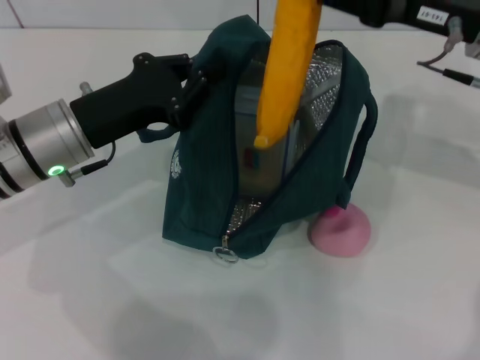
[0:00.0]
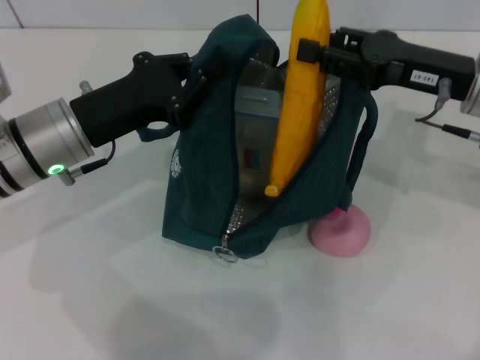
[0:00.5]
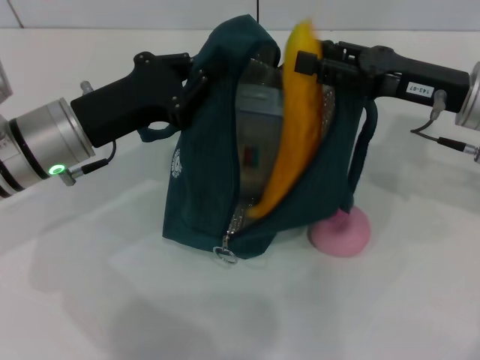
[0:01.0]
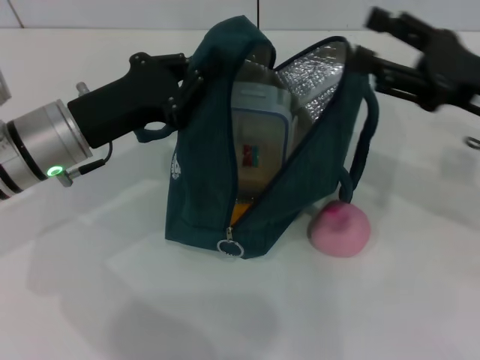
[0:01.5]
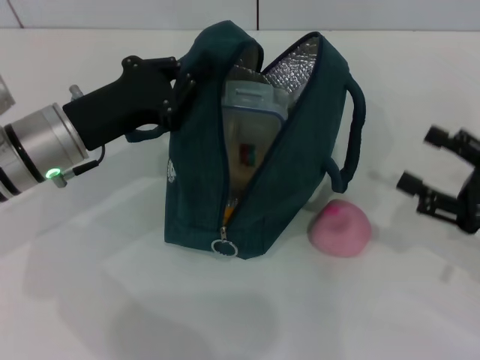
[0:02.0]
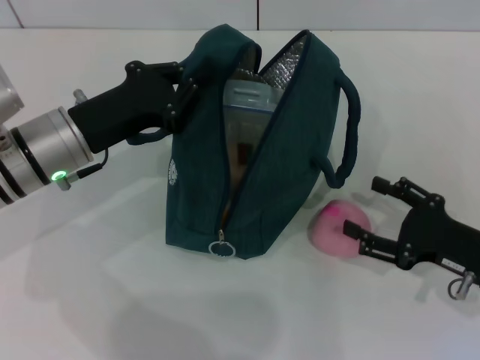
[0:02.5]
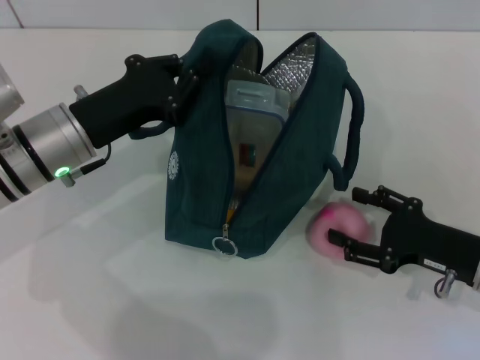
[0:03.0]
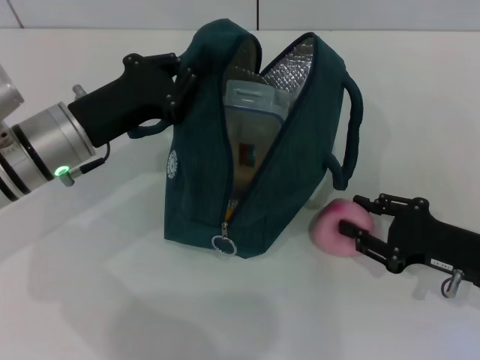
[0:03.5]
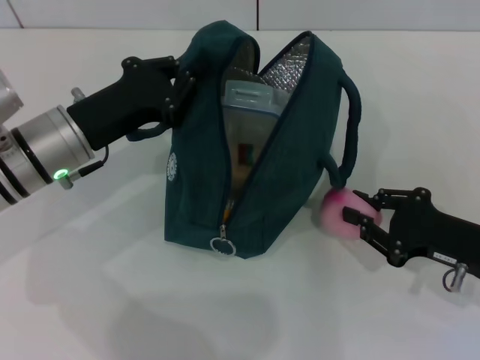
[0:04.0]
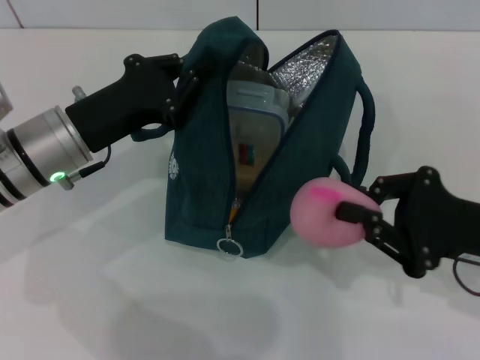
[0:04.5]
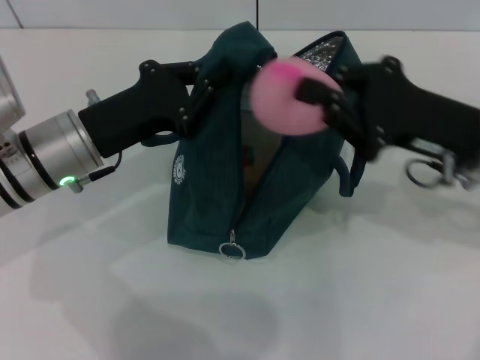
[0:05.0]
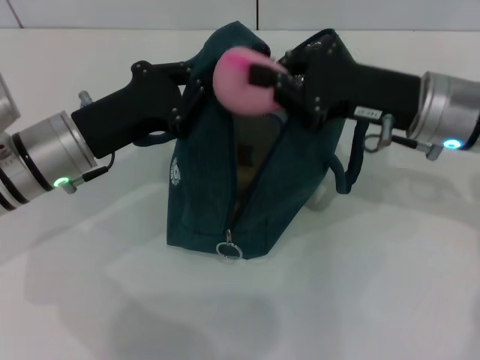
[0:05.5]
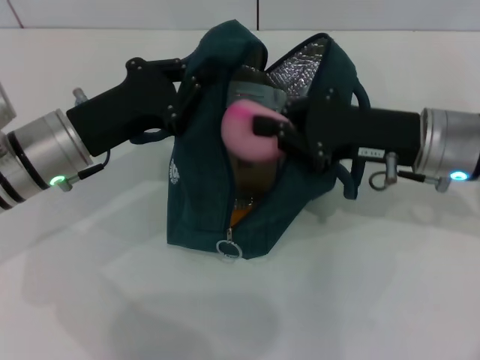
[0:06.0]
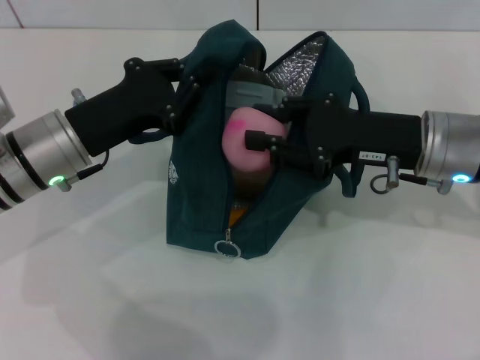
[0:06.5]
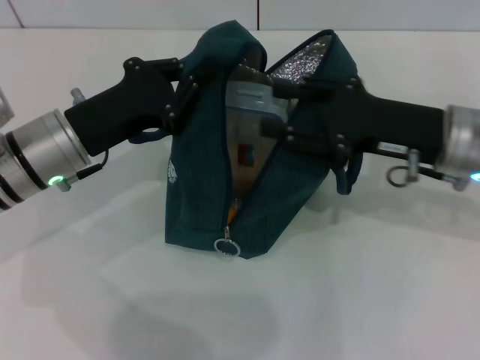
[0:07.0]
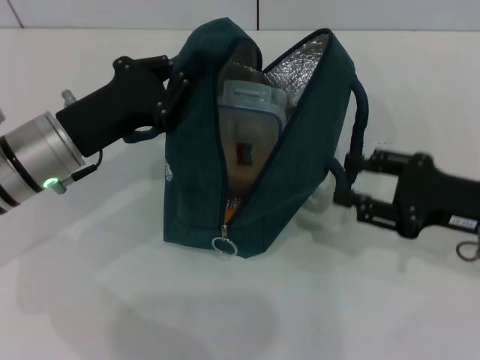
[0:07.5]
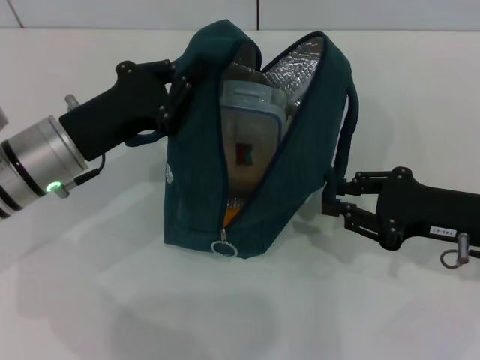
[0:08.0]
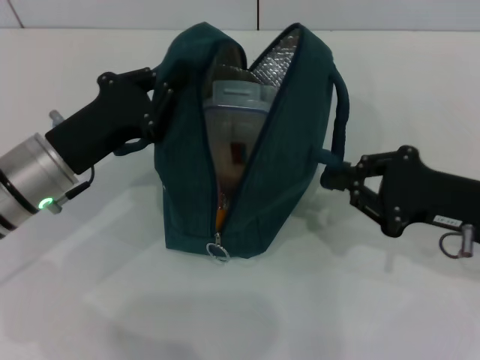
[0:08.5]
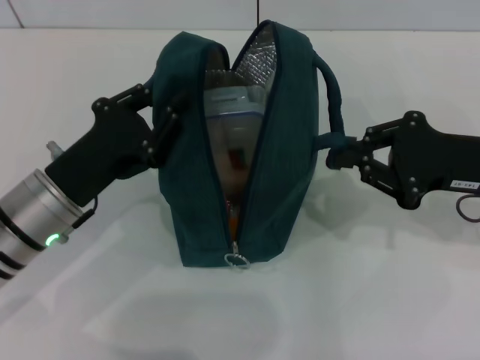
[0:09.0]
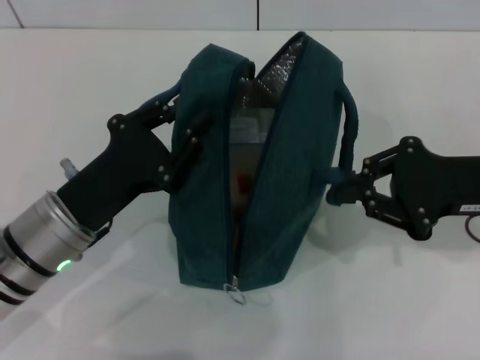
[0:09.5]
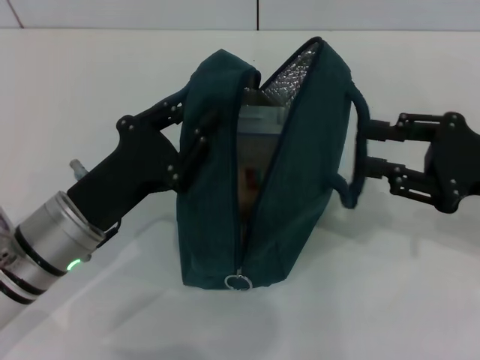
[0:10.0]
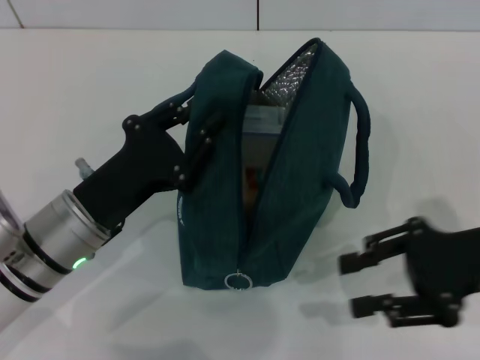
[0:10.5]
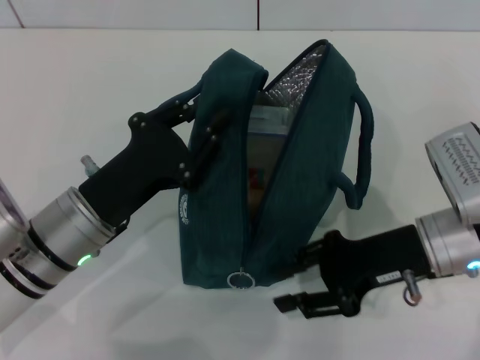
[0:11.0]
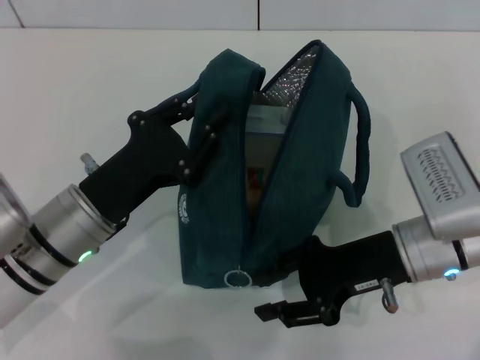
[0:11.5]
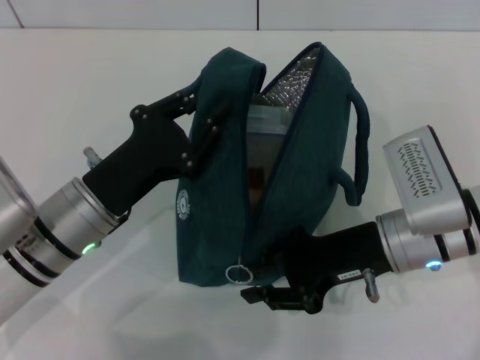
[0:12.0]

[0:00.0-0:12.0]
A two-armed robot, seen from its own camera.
Step, 0:01.5 to 0:03.5: Grab the peach with your right hand.
Step, 0:07.0 to 0:10.0: Hold the lunch bag with your right hand.
0:00.0 to 0:02.0: The right gripper shifts approximately 20 cm backward, downward and to the right, and opens its fingers.
0:02.0 to 0:04.0: The right gripper moves about 5 cm, and closes.
0:04.0 to 0:06.0: The right gripper moves upward, to the left and forward, some 15 cm.
0:06.0 to 0:08.0: The right gripper moves to the right and backward, some 10 cm.
0:08.0 to 0:10.0: The left gripper travels backward by about 5 cm. The right gripper ends up some 5 cm from where it was.
0:10.0 to 0:12.0: The right gripper is displaced to the left and downward by roughly 15 cm.

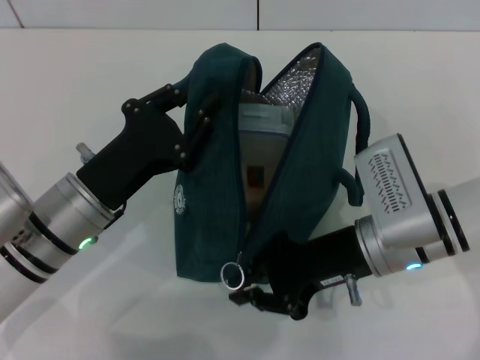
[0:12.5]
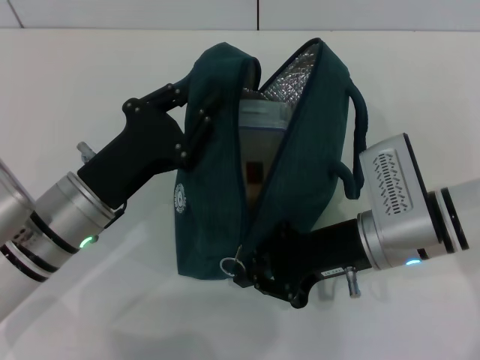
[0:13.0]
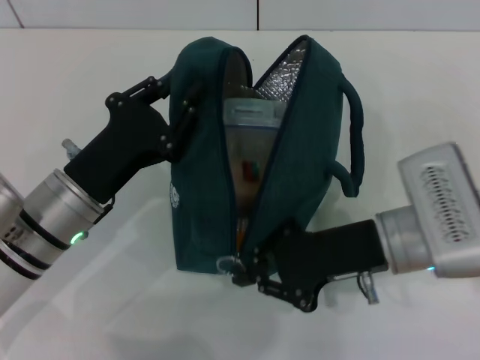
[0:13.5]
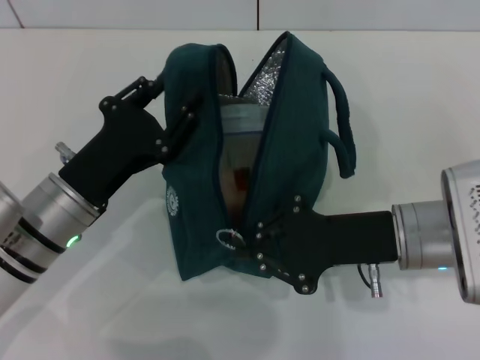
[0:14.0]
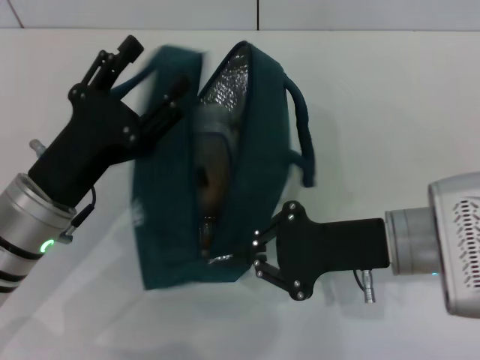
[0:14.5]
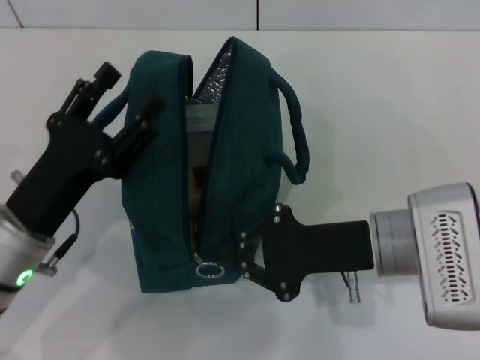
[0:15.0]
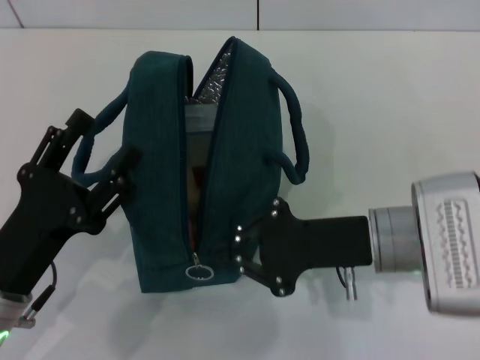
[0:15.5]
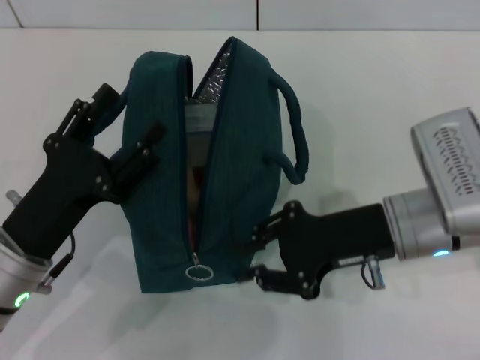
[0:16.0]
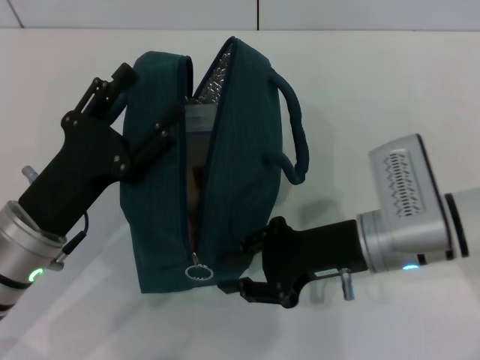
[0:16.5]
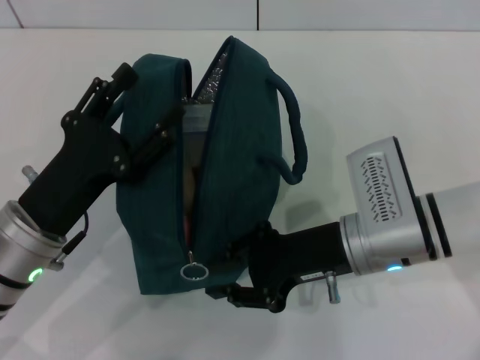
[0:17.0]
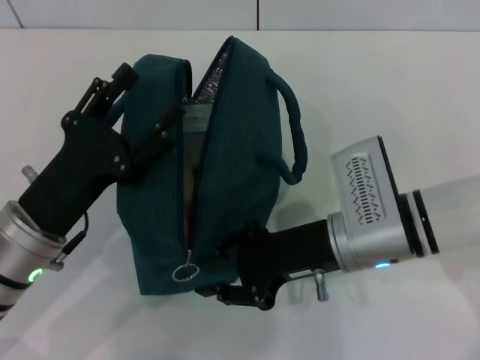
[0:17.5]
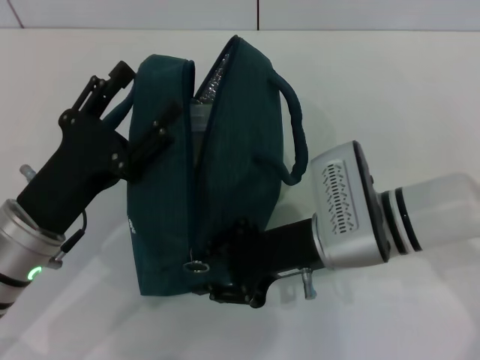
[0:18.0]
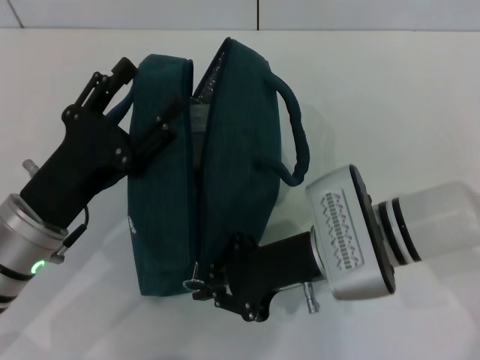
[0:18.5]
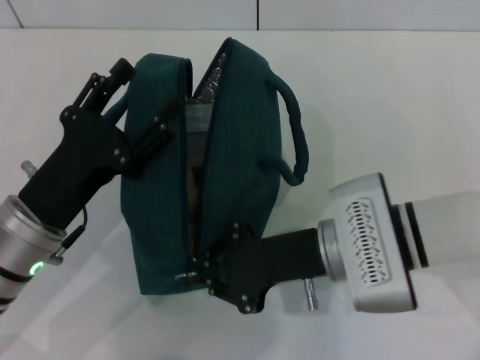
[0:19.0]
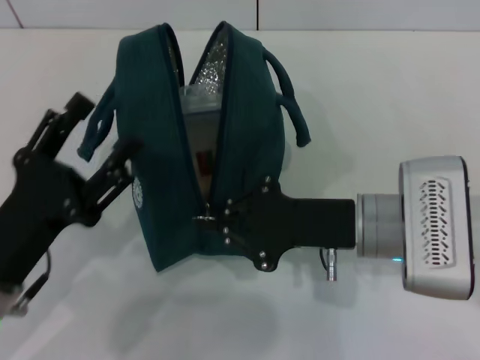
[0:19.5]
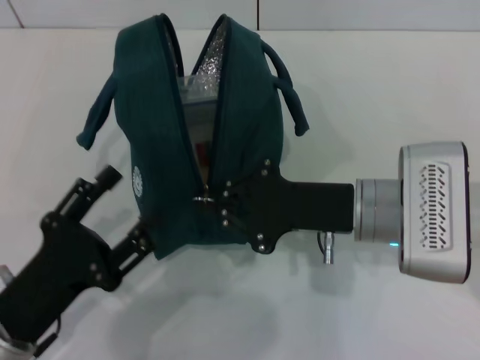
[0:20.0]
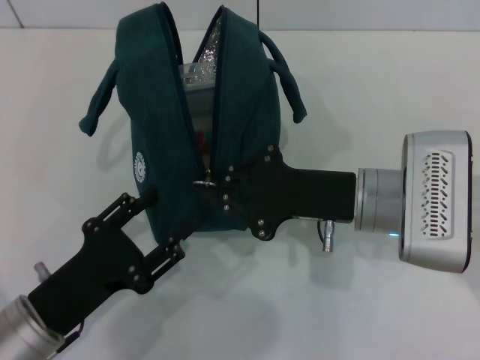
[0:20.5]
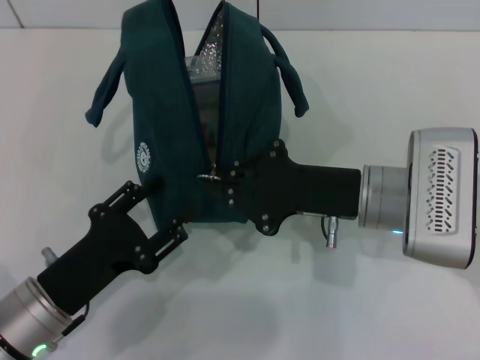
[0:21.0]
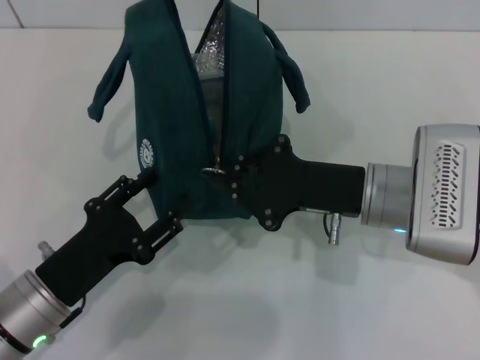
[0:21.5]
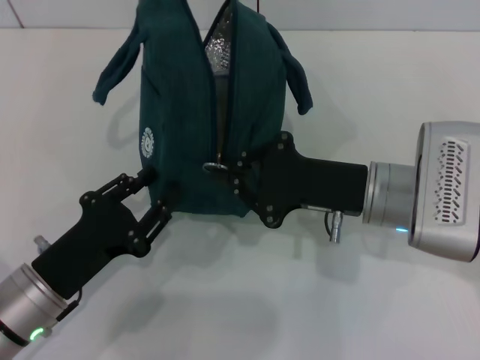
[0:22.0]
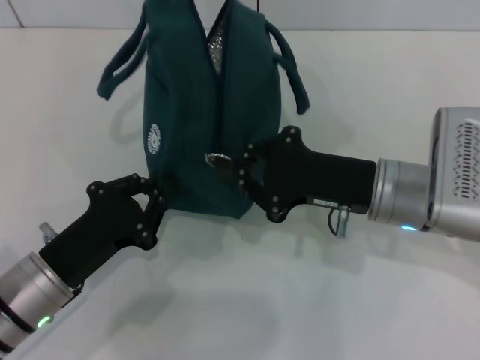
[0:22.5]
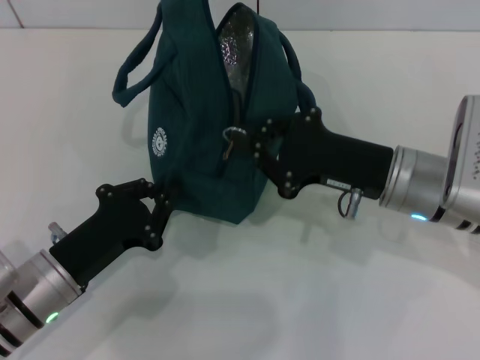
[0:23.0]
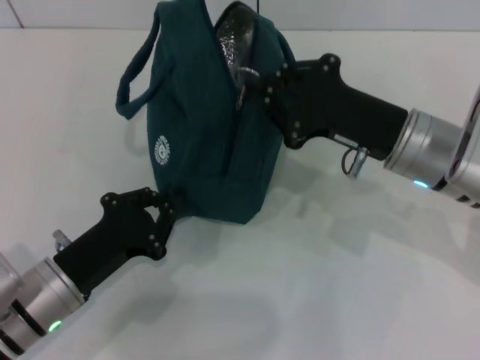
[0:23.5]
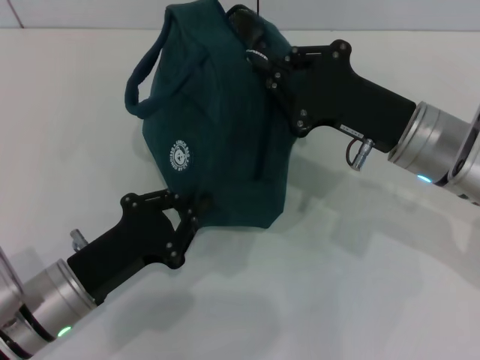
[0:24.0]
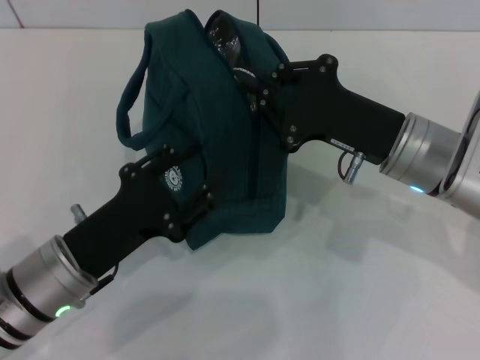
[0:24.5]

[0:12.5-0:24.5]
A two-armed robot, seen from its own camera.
Step, 0:12.5 to 0:15.5: Hold the lunch bag with your left hand.
0:12.5 to 0:14.5: The left gripper opens its fingers.
0:16.5 to 0:18.5: The grippers stay close to where they were, moving slightly.
0:18.5 to 0:20.5: The left gripper heads backward, covering about 5 cm.
0:20.5 to 0:22.5: The left gripper closes its fingers.

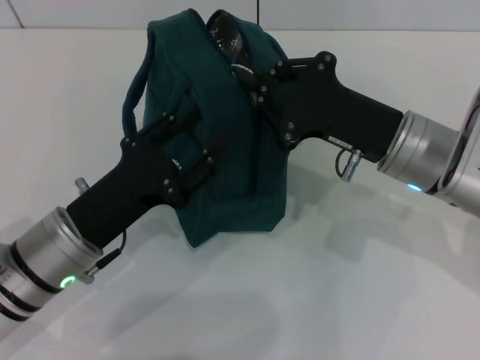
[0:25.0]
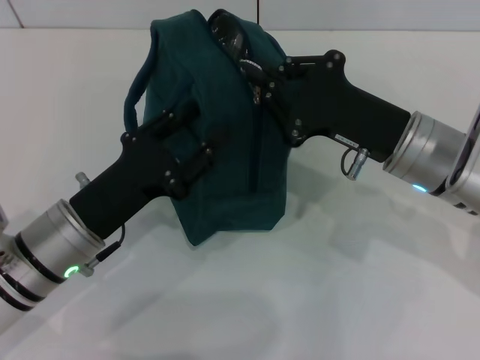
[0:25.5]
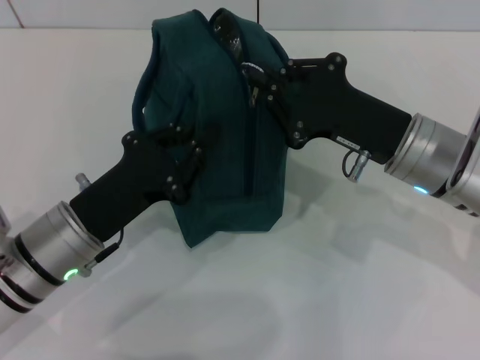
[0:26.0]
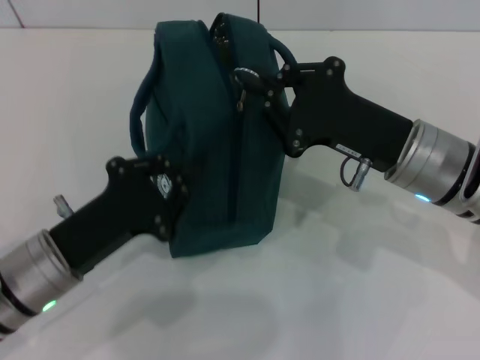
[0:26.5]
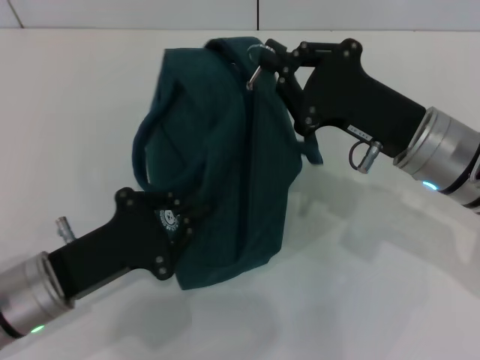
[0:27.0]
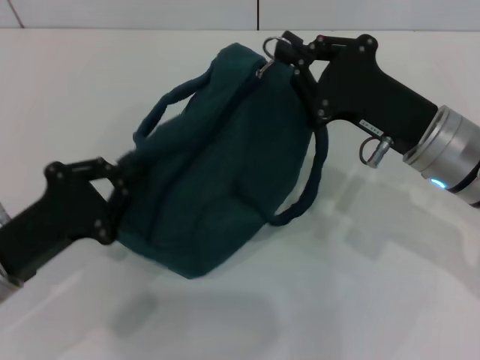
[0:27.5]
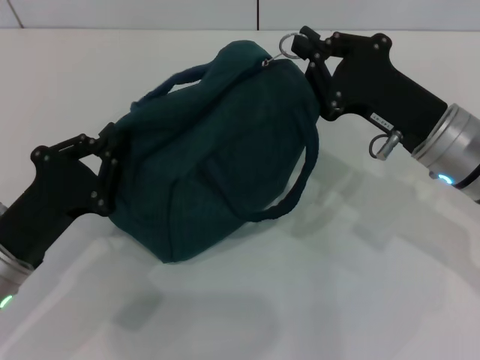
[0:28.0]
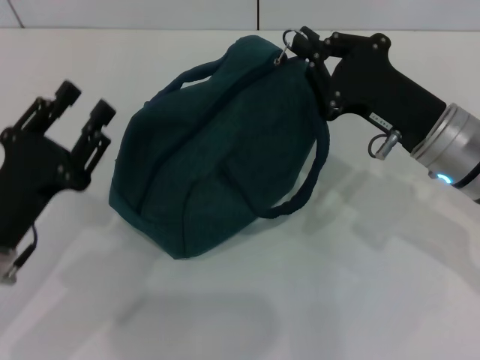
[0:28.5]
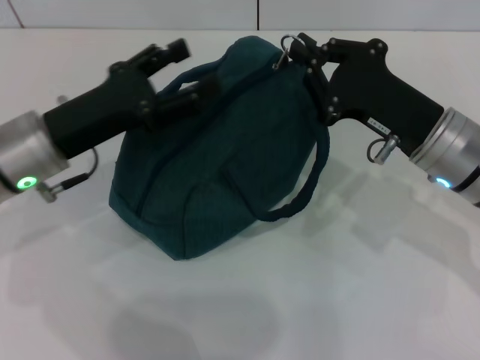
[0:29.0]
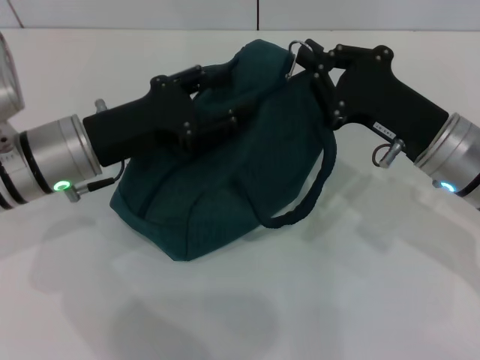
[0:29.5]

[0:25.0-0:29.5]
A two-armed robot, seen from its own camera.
0:25.0 to 0:27.0: The left gripper closes.
0:27.0 to 0:29.5: The left gripper heads forward and upward, covering about 10 cm, and opens.
